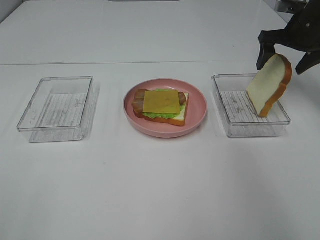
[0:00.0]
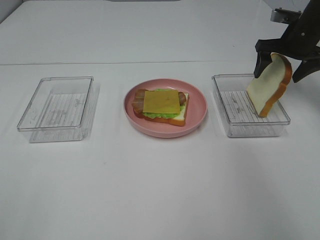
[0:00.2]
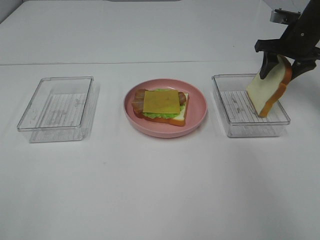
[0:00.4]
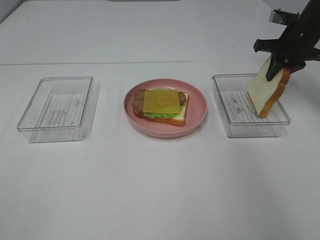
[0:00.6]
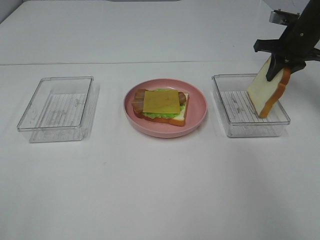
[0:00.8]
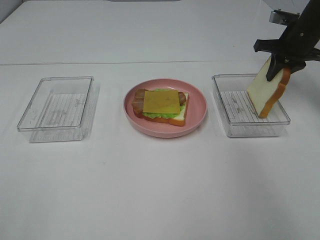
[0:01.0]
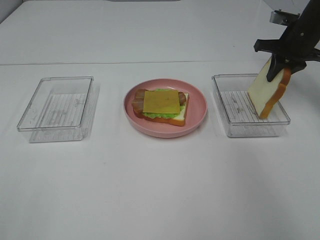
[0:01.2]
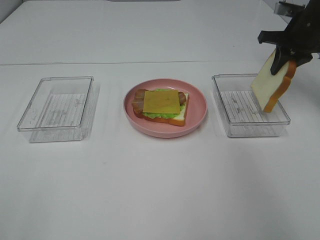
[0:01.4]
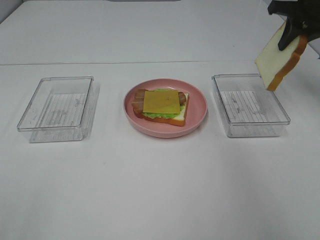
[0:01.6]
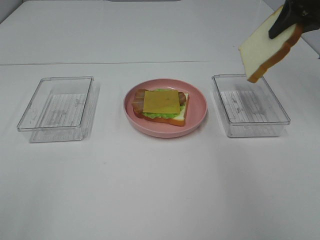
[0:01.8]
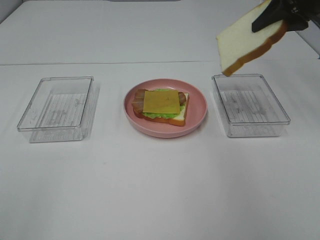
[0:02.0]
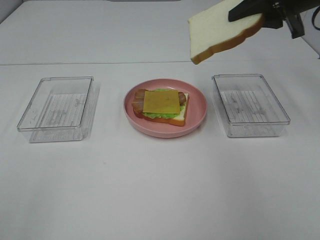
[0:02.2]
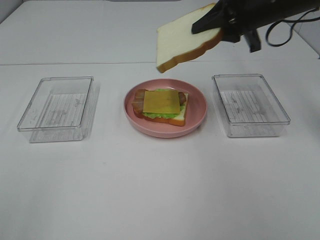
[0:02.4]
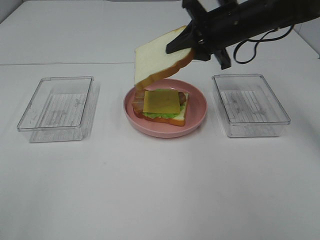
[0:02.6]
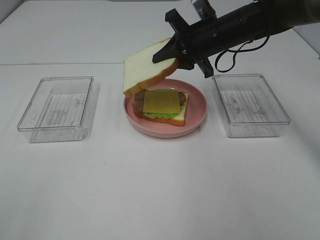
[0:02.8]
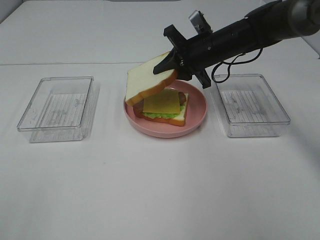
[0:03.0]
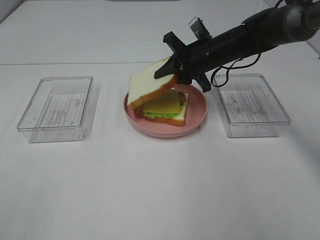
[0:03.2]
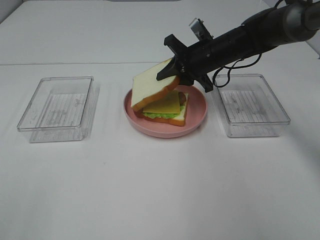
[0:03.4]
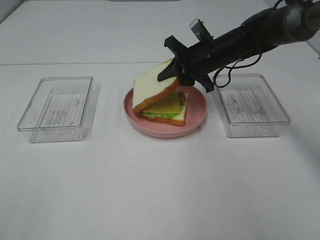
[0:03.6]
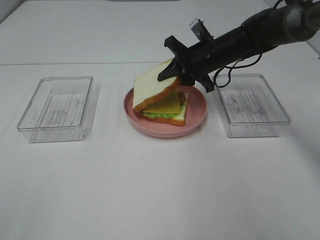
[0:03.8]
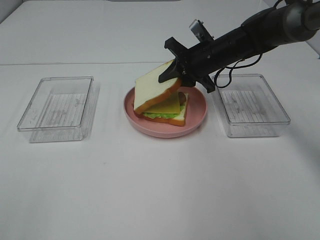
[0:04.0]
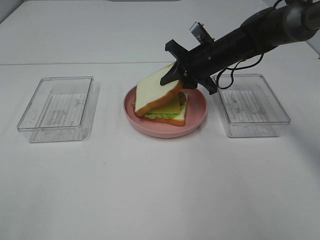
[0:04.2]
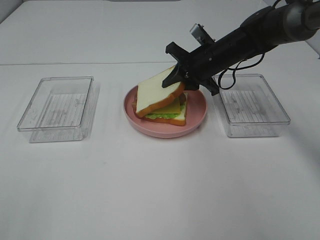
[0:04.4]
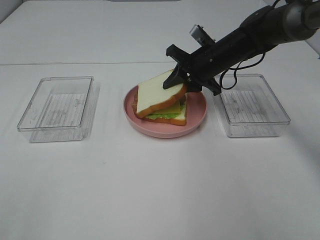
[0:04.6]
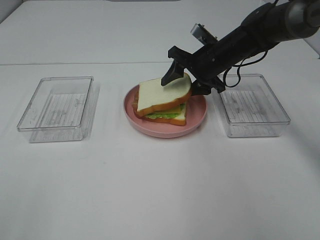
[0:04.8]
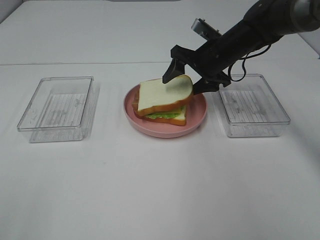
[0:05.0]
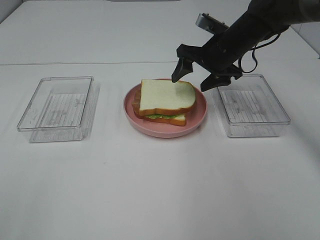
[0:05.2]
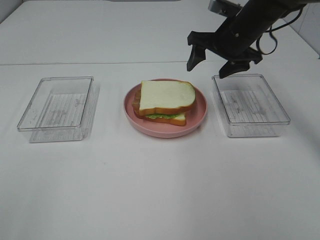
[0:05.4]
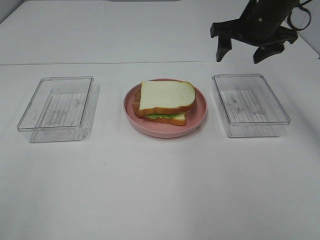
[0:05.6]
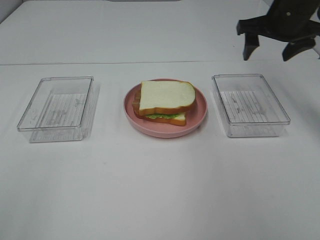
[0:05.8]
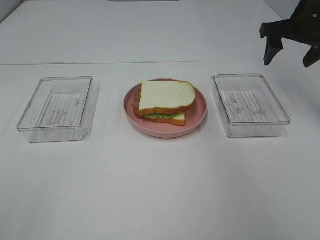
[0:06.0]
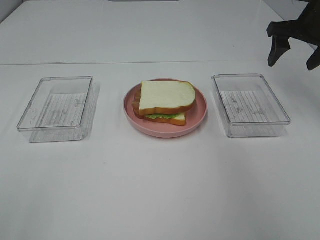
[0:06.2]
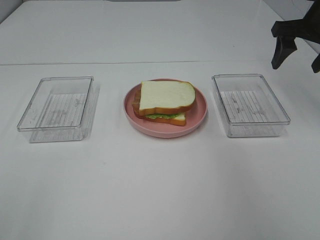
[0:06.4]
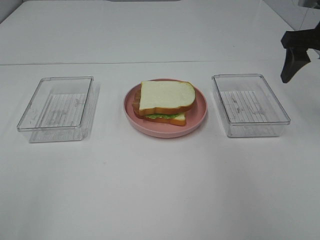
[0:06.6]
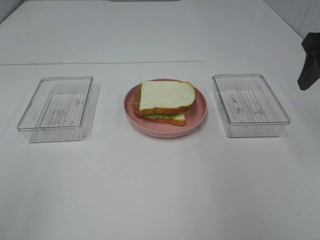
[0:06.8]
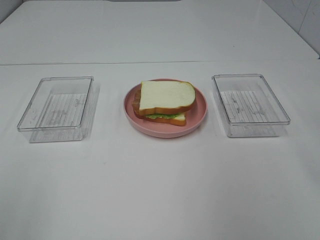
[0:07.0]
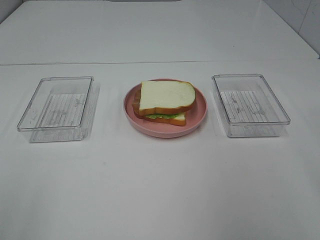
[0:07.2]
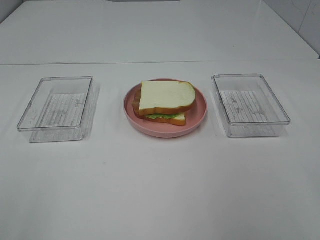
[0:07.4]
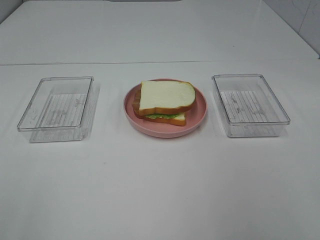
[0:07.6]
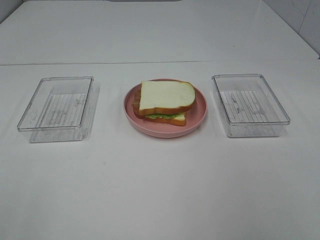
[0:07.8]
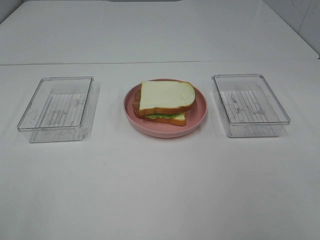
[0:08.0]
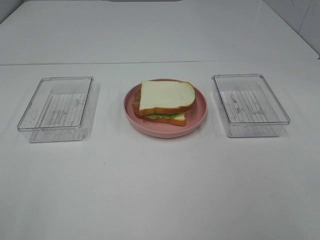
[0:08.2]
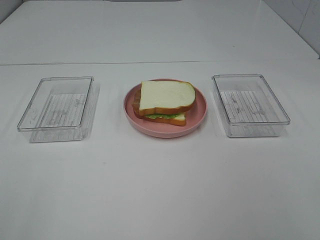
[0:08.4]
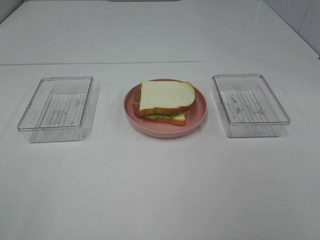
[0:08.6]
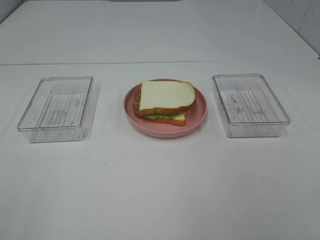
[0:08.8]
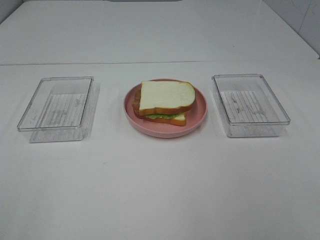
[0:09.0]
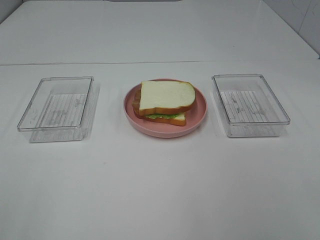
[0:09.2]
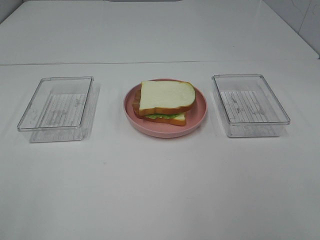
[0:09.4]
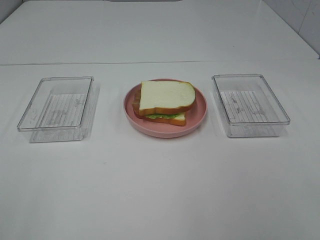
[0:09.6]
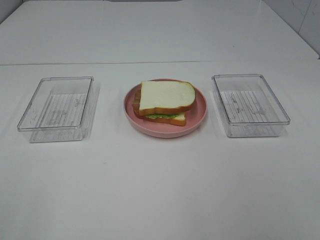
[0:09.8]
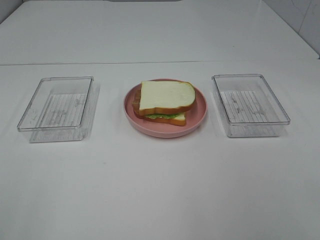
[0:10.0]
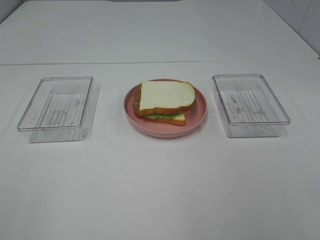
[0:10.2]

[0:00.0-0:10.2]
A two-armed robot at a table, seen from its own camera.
Task of the whole recording: Make sandwiches.
Step, 0:01.2 to 0:05.4: Right hand:place the bread slice on the cheese slice.
0:00.0 to 0:01.4: The right gripper closes up.
0:01.4 to 0:03.0: The right gripper is displaced to the left by some 20 cm.
0:03.0 to 0:04.4: The grippers stay close to where they were, moving slightly.
0:04.4 to 0:05.8: The right gripper heads upward and to the right, covering approximately 15 cm, and opens its fingers.
0:05.8 to 0:07.2: The right gripper shifts approximately 25 cm backward.
0:08.8 to 0:10.2: Neither gripper changes place.

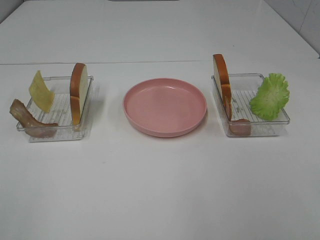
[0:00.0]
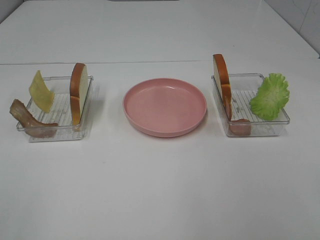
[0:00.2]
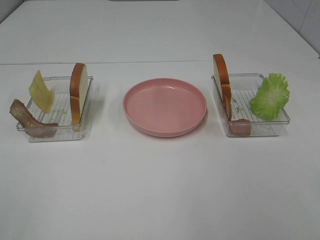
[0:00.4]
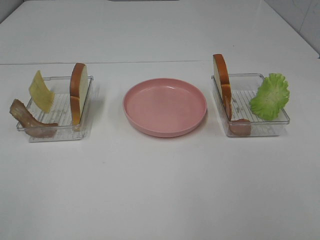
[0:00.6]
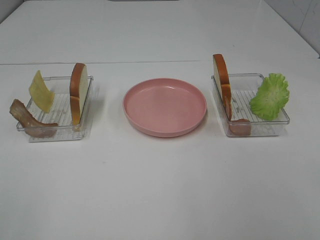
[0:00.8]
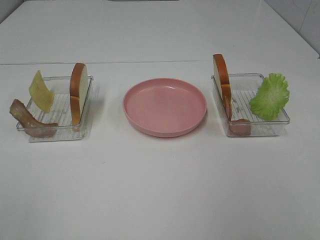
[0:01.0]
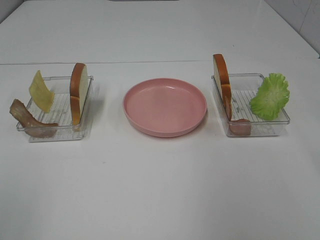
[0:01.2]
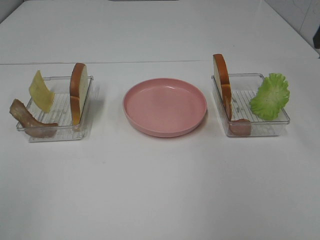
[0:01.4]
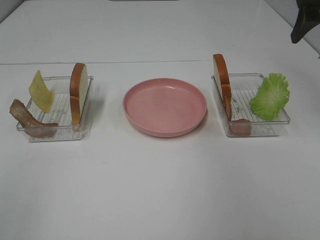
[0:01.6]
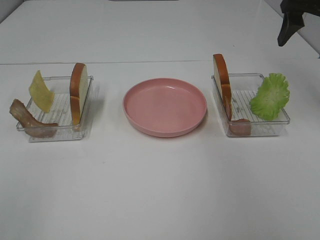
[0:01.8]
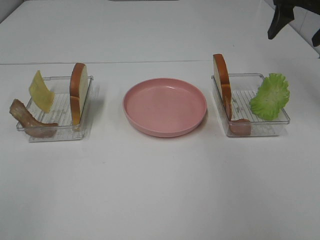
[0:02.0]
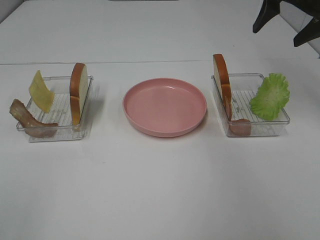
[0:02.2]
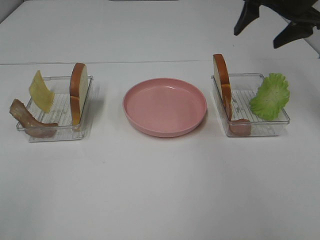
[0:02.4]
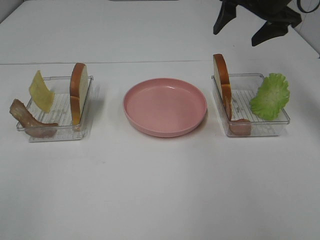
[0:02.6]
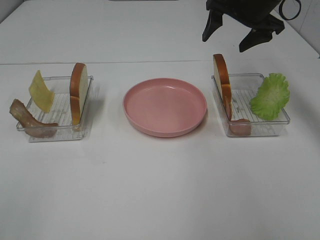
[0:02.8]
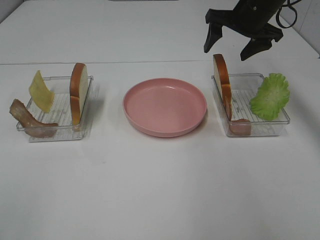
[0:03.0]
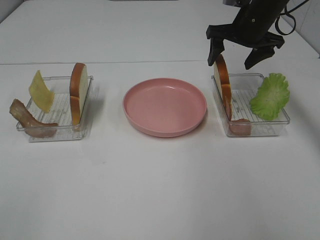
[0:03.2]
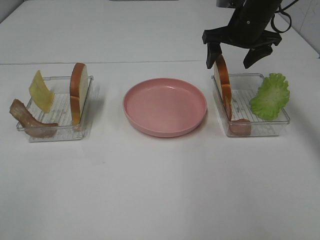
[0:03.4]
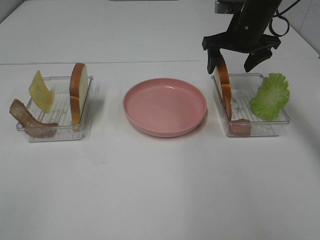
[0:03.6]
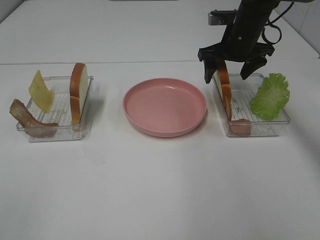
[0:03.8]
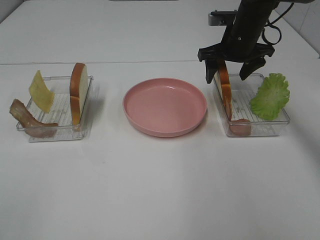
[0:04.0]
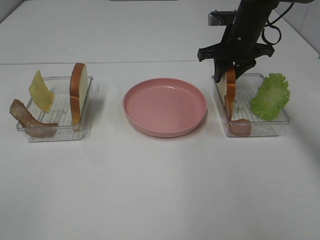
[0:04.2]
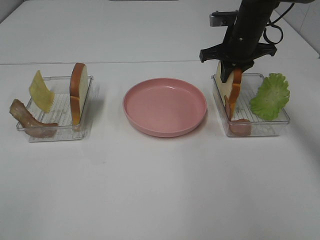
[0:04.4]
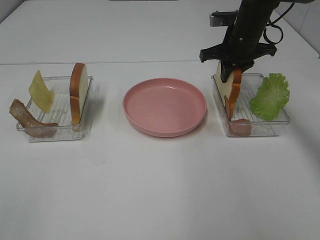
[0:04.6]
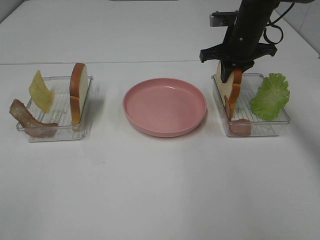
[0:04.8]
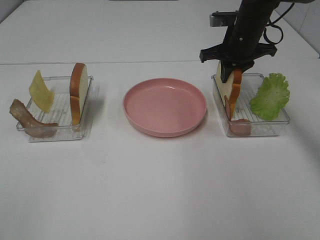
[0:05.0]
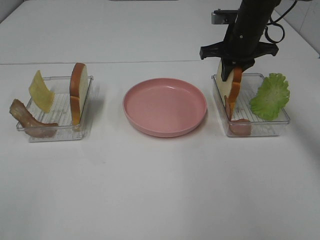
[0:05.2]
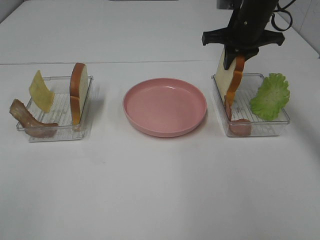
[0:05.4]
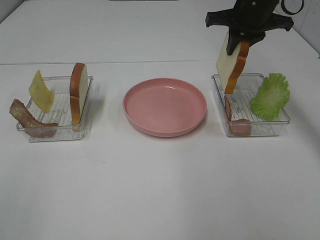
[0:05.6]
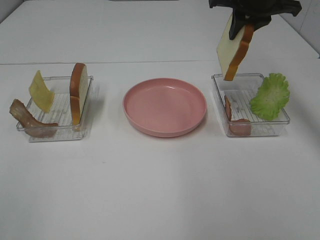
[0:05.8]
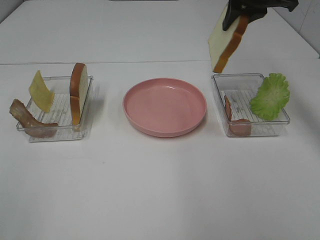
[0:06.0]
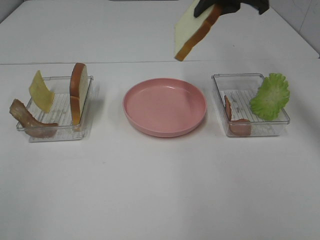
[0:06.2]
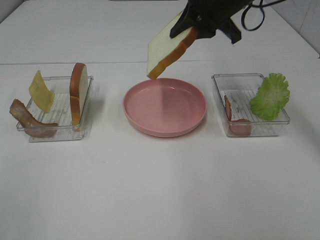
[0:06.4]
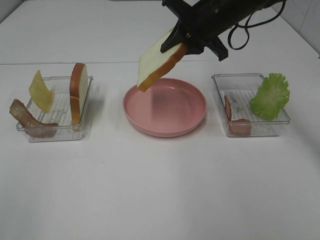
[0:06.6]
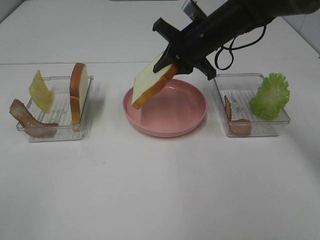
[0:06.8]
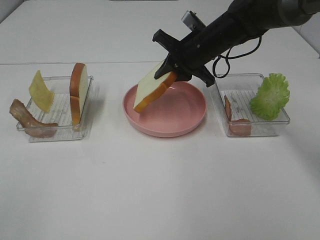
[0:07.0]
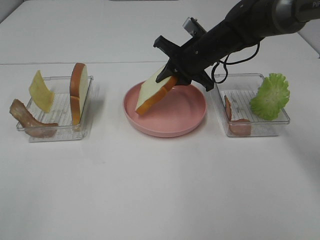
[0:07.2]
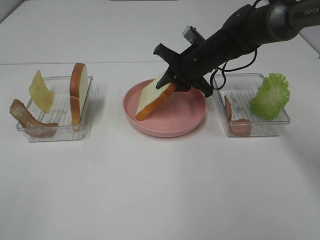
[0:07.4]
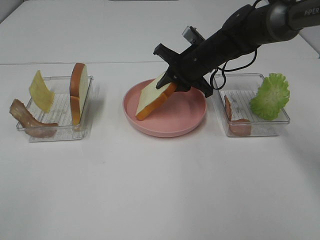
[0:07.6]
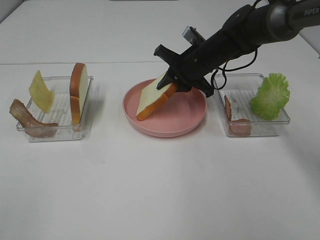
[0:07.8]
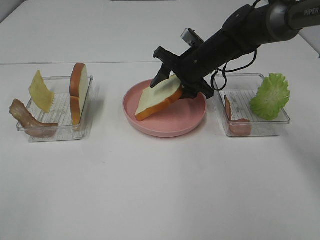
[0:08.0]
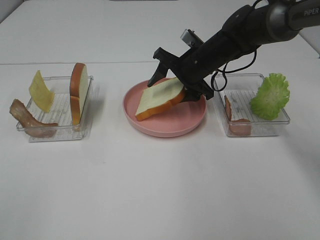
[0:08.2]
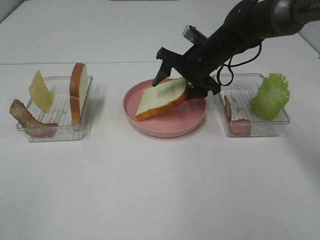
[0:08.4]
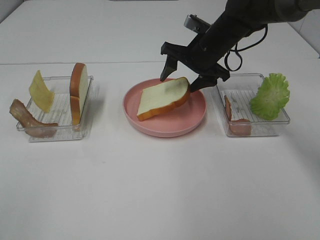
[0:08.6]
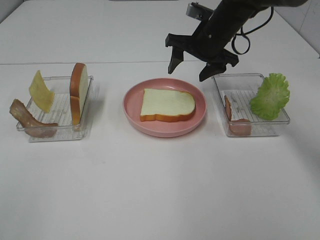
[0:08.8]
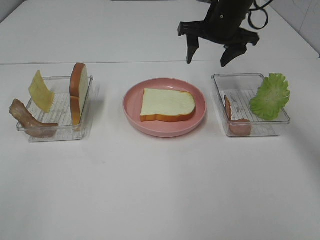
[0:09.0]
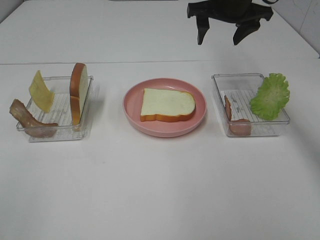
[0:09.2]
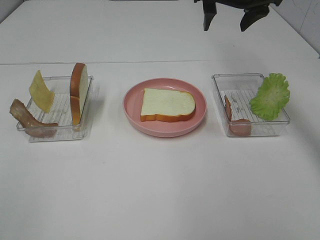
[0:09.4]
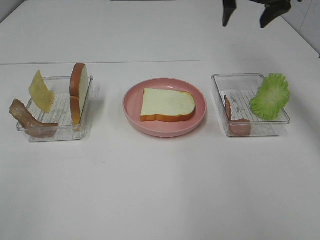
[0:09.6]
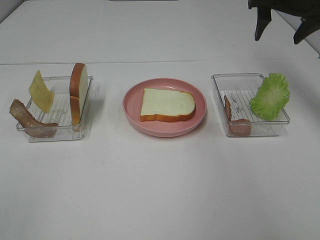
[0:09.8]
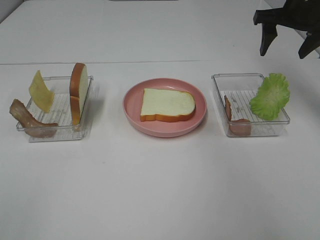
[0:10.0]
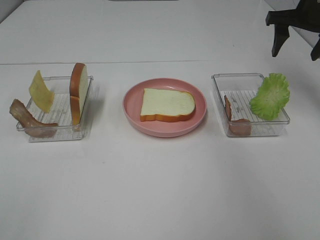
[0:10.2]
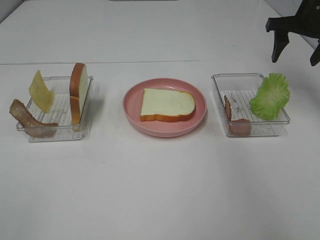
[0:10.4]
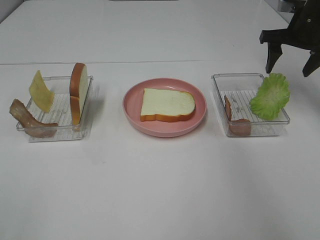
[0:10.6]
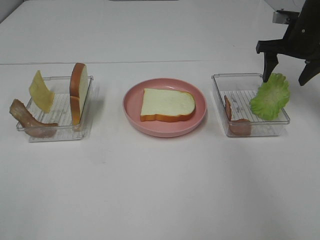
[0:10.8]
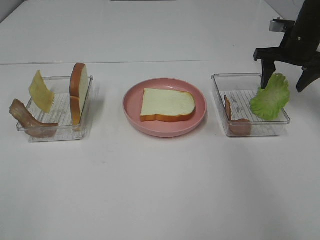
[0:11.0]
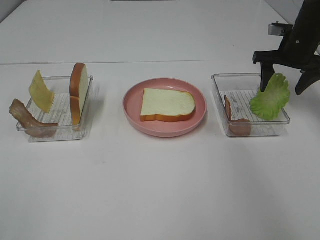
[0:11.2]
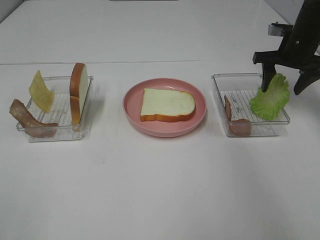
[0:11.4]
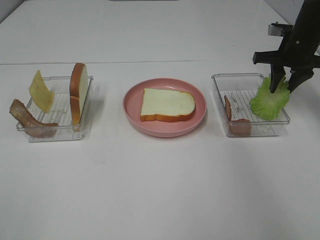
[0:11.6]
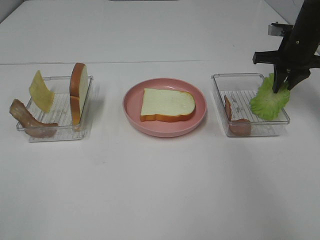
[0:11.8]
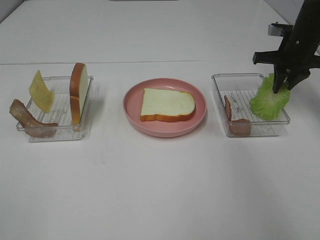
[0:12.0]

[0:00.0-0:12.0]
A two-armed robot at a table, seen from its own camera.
Task of the whole recording: Make sandwiches.
Step, 0:00.0 to 0:04.4: Right hand:grab the bread slice.
Step, 0:04.6 to 0:08.6: Right hand:place the bread slice on the plate.
0:00.0 to 0:01.6: The right gripper is displaced forward by some 35 cm.
0:01.6 to 0:03.0: The right gripper shifts some 15 cm forward, to the left and downward.
0:03.0 to 0:04.4: The right gripper ends up about 5 cm from where it was, and closes.
0:04.4 to 0:06.0: The right gripper shifts some 10 cm upward.
0:06.0 to 0:07.6: The right gripper travels downward by approximately 15 cm.
0:07.6 to 0:09.0: The right gripper heads upward, covering approximately 10 cm, and opens.
0:09.0 to 0:10.4: The right gripper heads to the right, covering about 15 cm.
0:10.4 to 0:12.0: The right gripper moves downward, approximately 5 cm, and closes.
